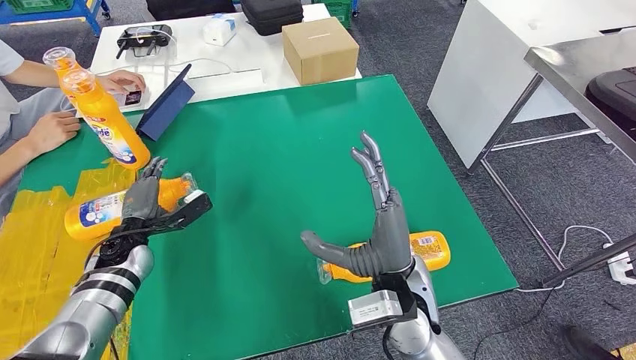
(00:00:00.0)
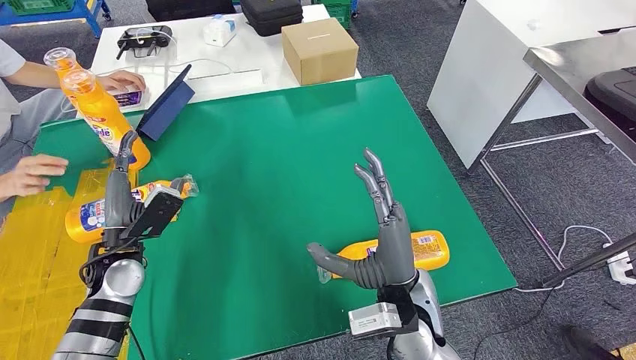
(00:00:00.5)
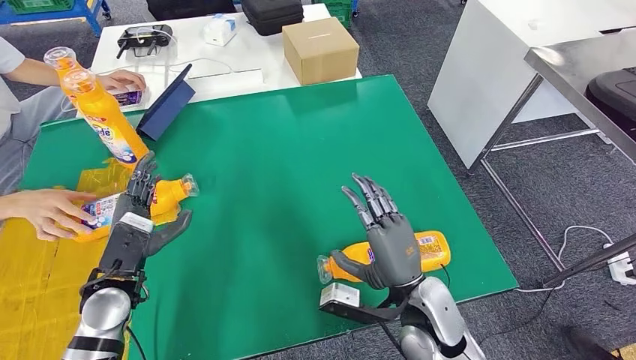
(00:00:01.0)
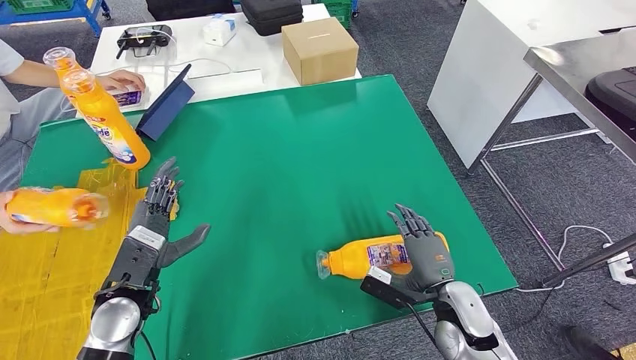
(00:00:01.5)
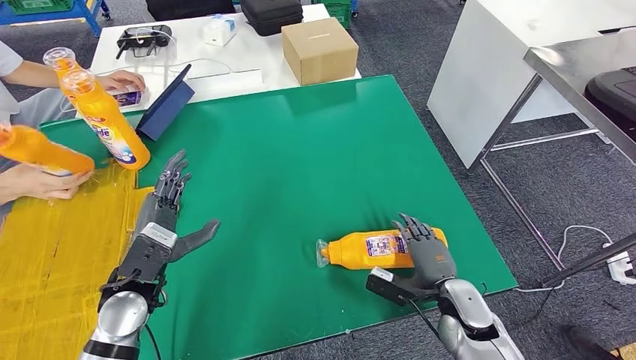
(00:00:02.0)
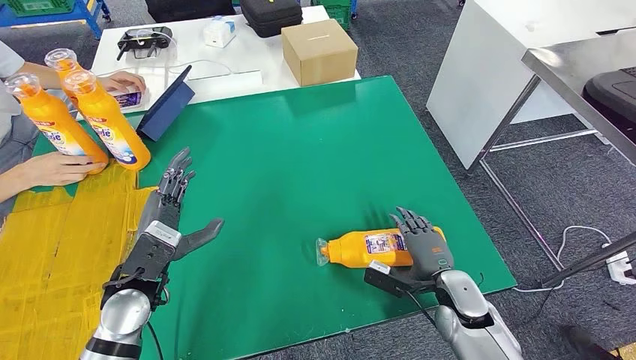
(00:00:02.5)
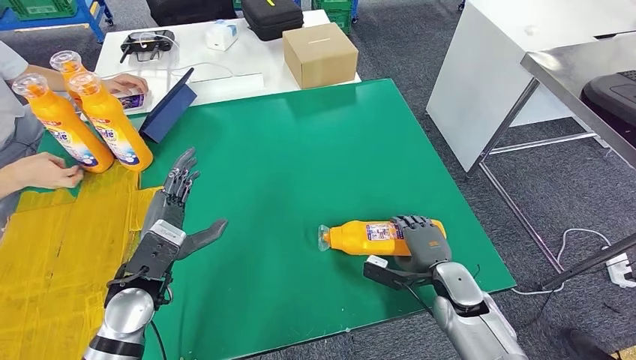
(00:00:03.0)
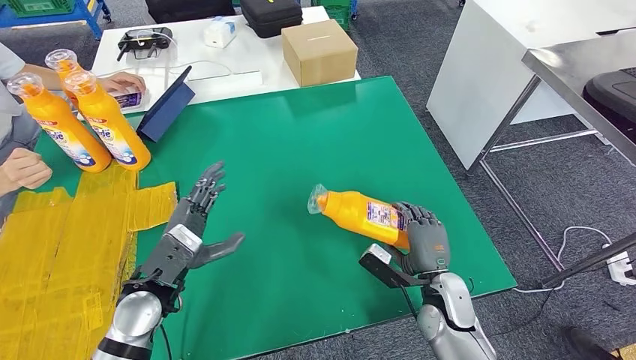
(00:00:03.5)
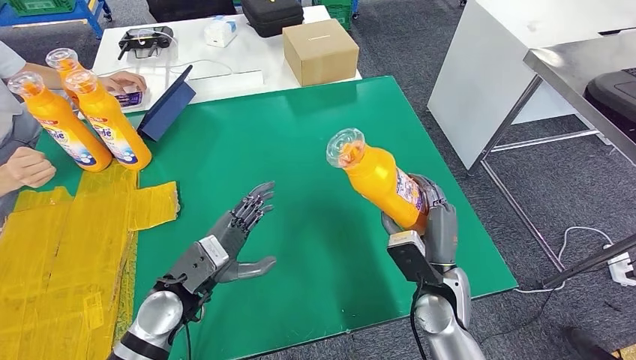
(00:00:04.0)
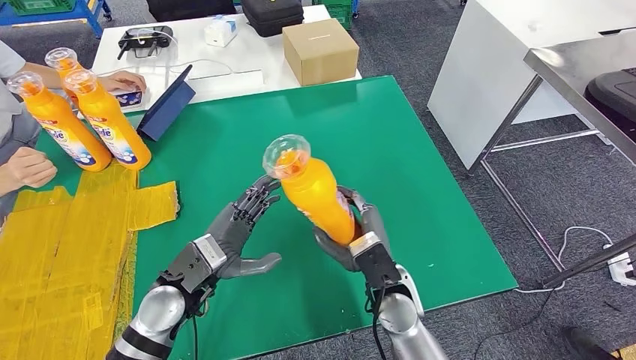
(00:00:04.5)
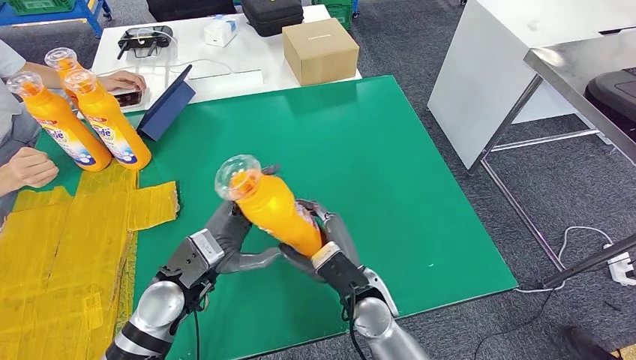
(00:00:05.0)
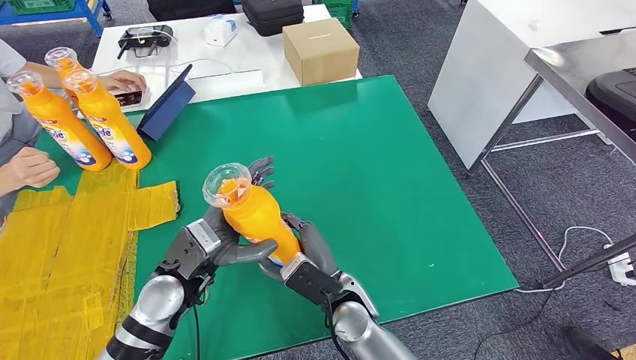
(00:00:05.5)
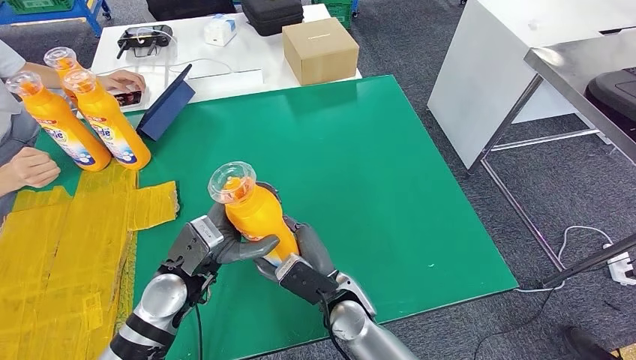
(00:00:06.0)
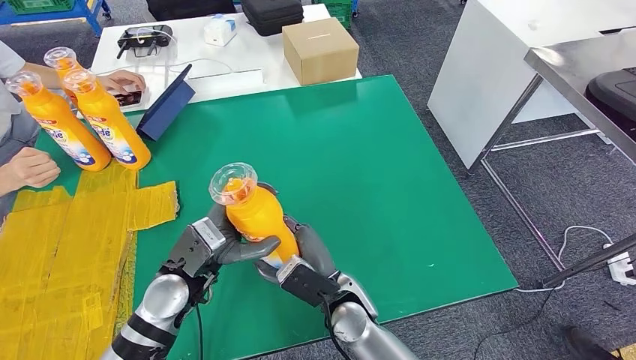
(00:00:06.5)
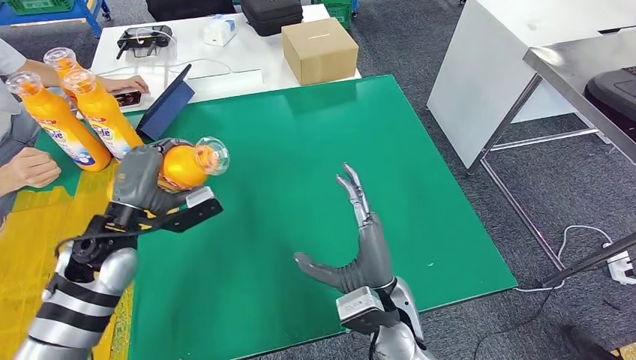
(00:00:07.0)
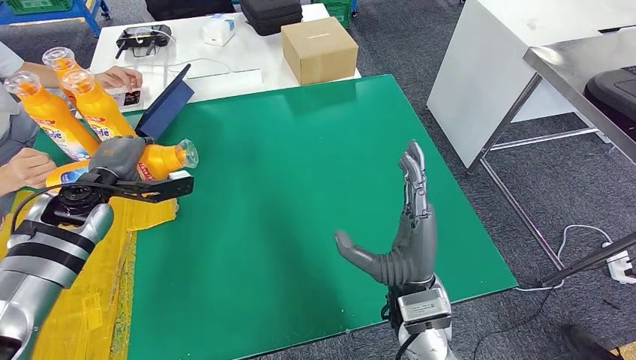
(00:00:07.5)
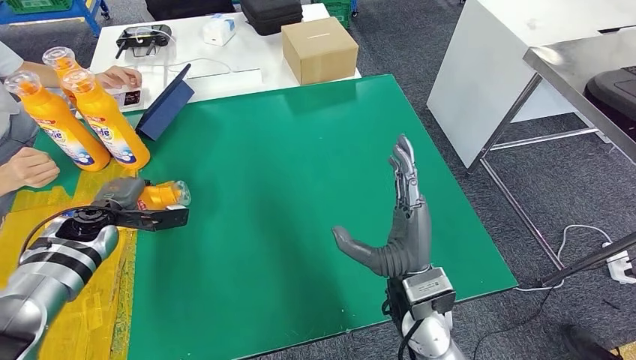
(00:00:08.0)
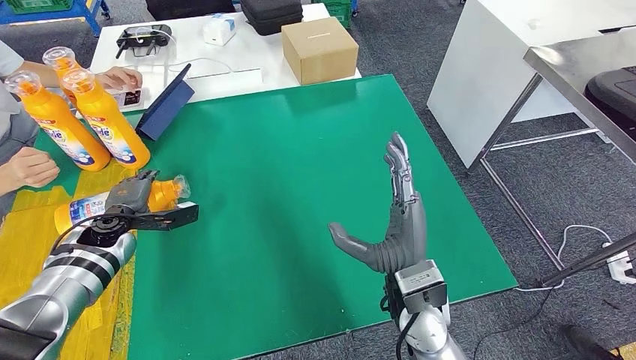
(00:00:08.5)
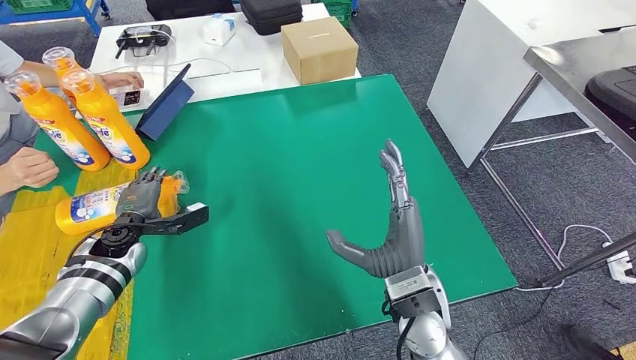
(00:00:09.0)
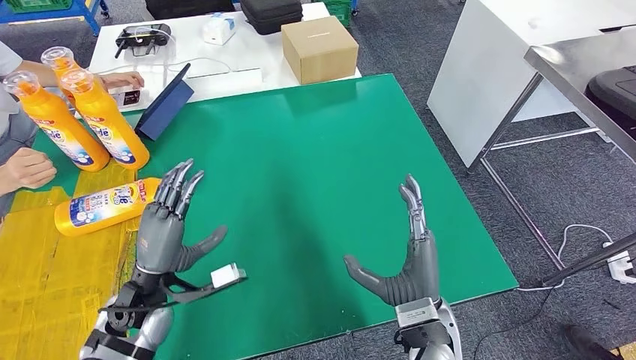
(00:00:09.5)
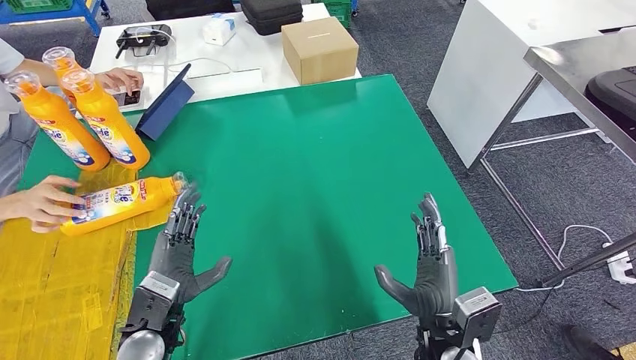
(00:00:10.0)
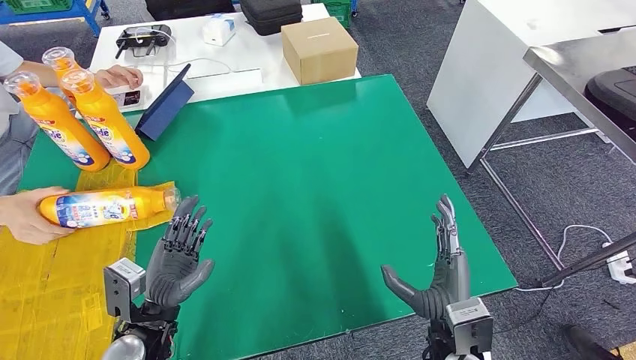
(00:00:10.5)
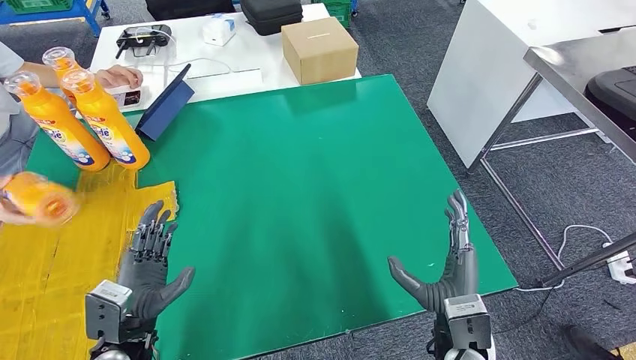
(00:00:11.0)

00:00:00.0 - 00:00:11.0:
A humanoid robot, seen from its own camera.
Step, 00:00:03.5 - 00:00:06.5: Pick up the fast-moving consumer goods bottle from the table.
Step, 00:00:07.0 - 00:00:11.0: Flip the fast-moving consumer goods bottle to the front side.
00:00:00.0 - 00:00:02.0: The left hand is displaced backward, to the right and upward by roughly 15 cm. Meanwhile the right hand travels downward and to the right by roughly 20 cm.
00:00:03.5 - 00:00:05.5: The left hand shifts some 5 cm to the right. The right hand goes roughly 20 cm to the left.
00:00:07.5 - 00:00:09.0: The left hand travels downward by some 15 cm.
00:00:09.0 - 00:00:11.0: The left hand shifts about 20 cm backward and to the right, while the right hand travels to the right and downward by about 10 cm.
